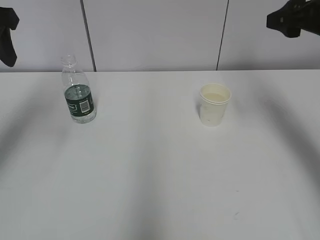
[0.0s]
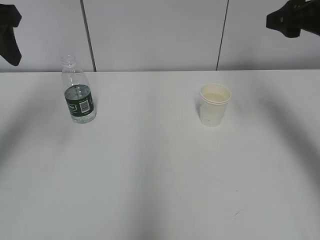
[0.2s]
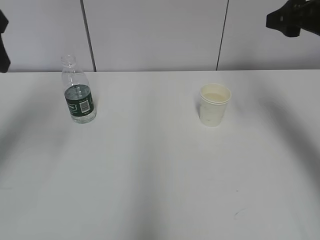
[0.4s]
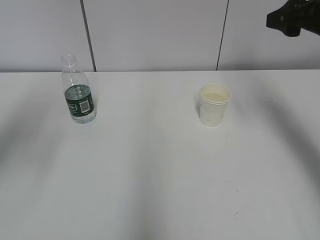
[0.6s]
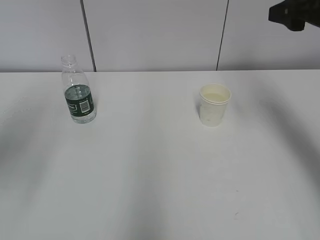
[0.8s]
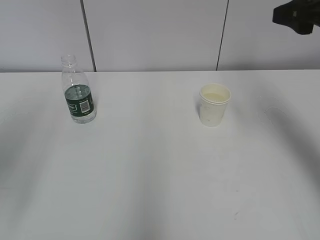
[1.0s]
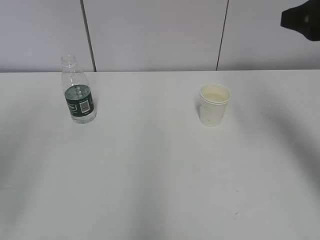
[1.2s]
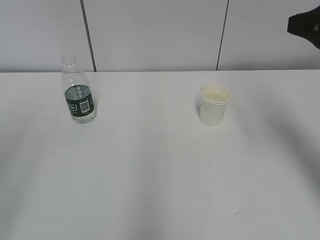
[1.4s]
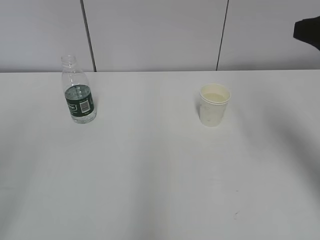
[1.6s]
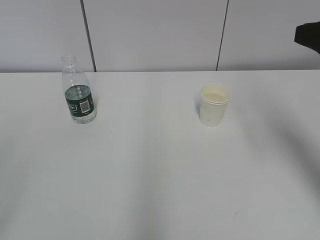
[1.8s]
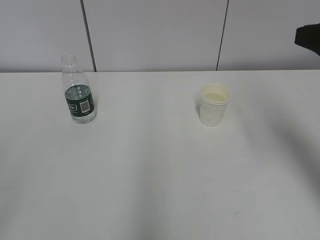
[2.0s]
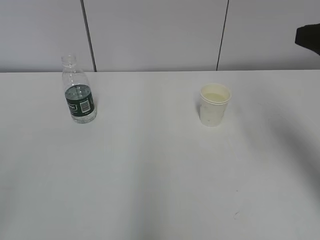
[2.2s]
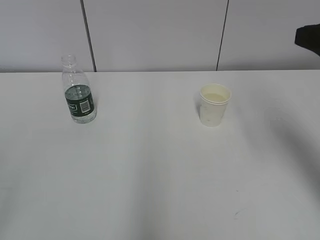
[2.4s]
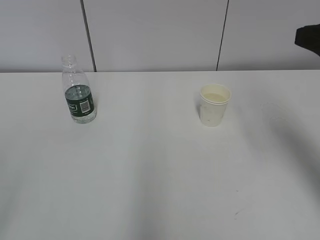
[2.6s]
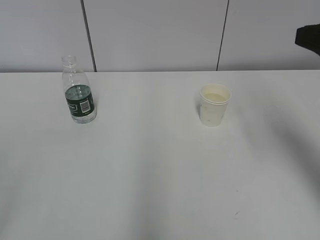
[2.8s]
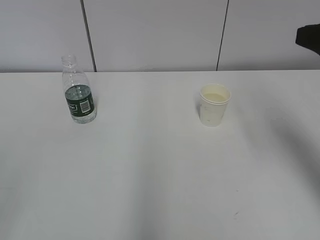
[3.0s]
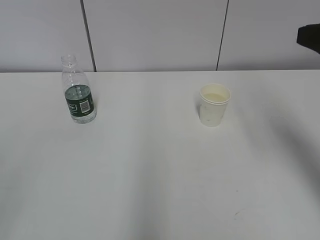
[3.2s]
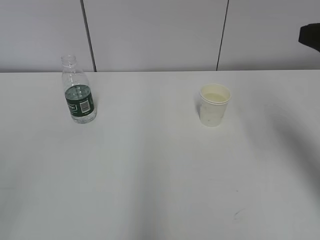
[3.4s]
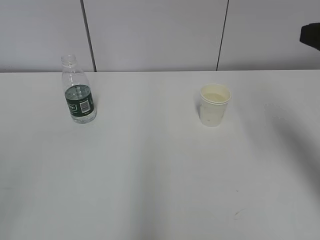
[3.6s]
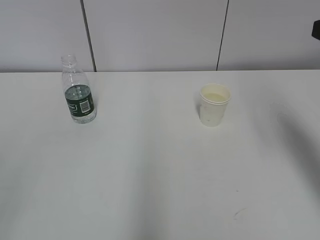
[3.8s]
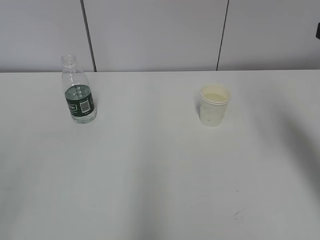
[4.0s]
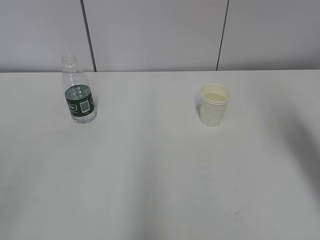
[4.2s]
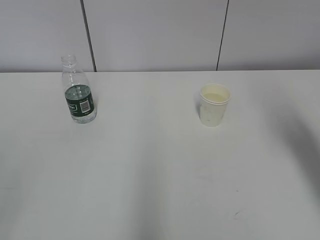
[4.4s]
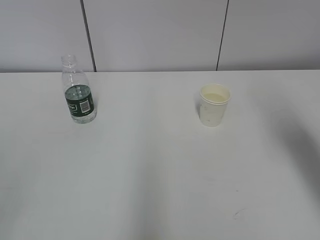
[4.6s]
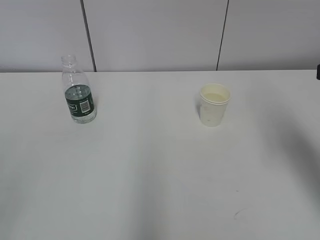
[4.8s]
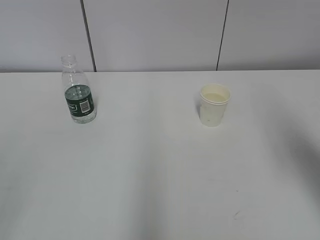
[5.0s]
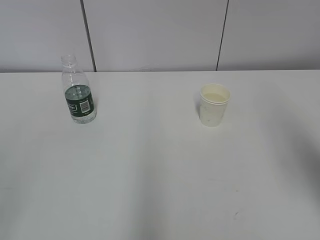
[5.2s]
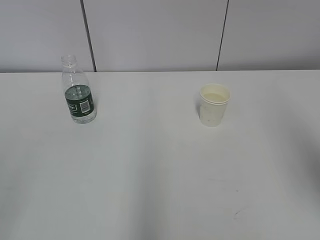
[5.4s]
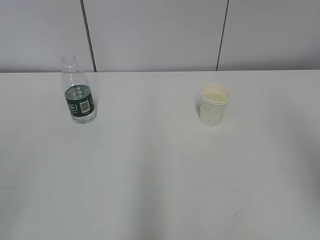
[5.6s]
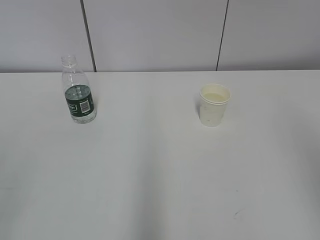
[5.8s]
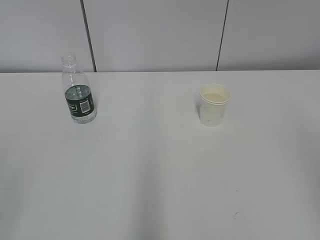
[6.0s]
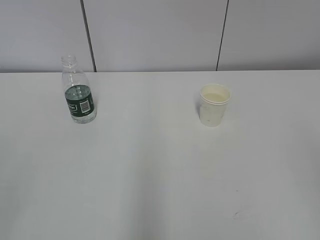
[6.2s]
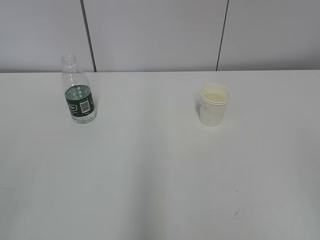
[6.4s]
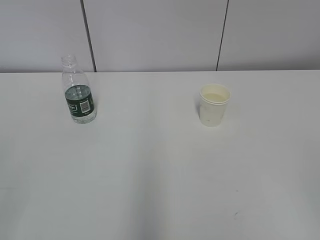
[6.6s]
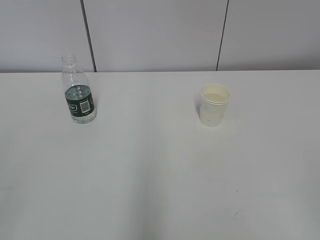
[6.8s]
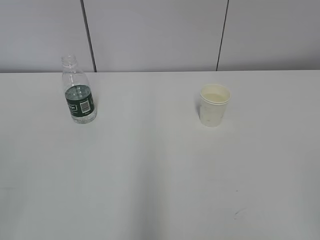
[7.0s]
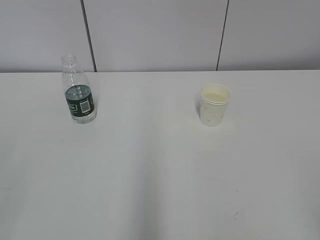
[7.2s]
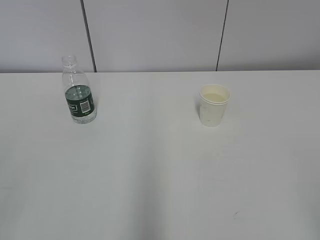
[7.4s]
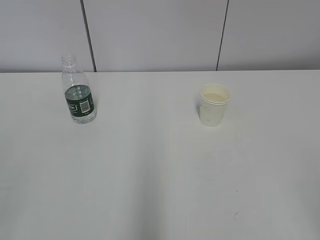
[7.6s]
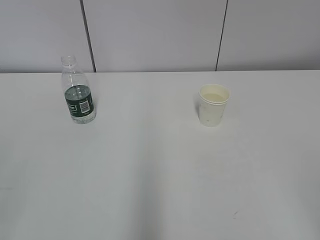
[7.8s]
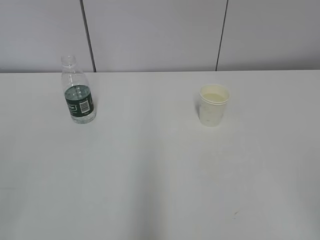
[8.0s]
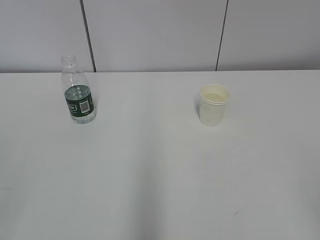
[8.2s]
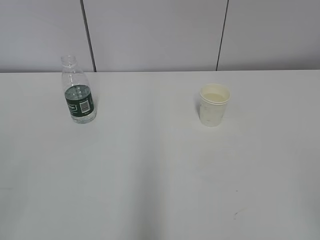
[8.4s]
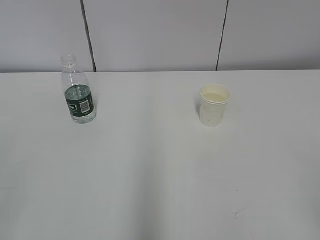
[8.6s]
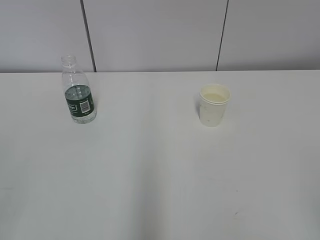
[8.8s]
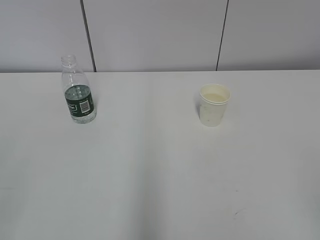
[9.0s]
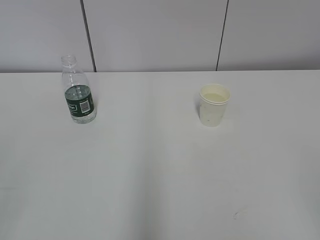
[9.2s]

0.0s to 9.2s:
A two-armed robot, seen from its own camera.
0.0s to 1.6s: The left gripper travels backward by some 25 cm; the right gripper is displaced backward by about 10 cm.
4.6s to 6.2s: The right gripper is displaced backward by some 25 cm.
